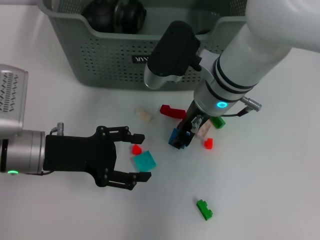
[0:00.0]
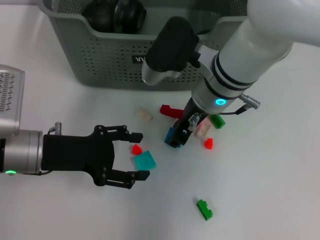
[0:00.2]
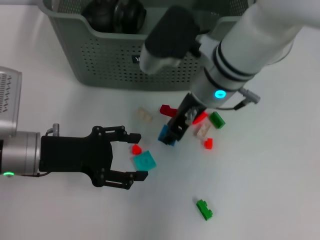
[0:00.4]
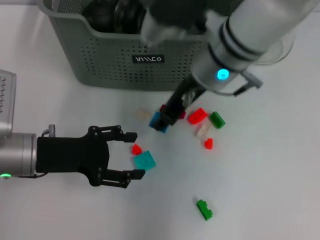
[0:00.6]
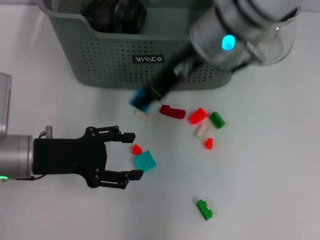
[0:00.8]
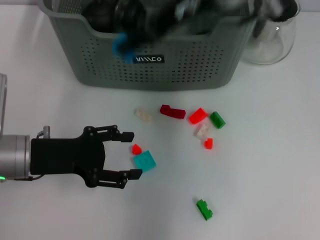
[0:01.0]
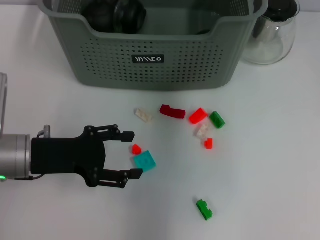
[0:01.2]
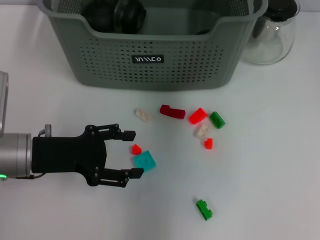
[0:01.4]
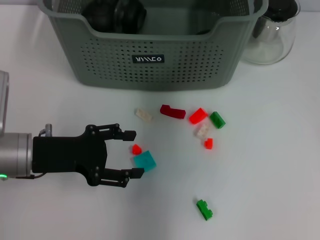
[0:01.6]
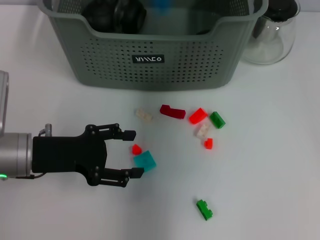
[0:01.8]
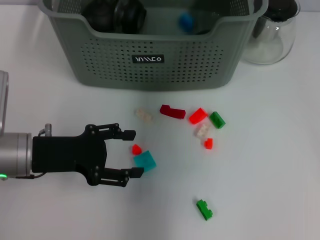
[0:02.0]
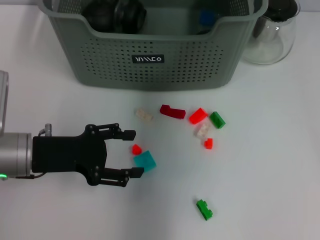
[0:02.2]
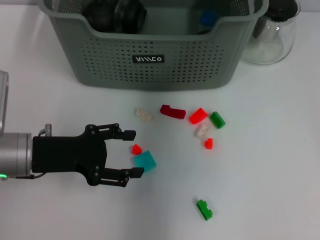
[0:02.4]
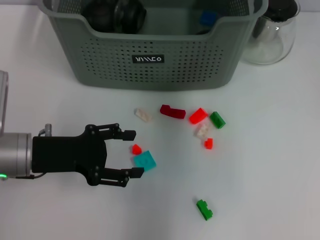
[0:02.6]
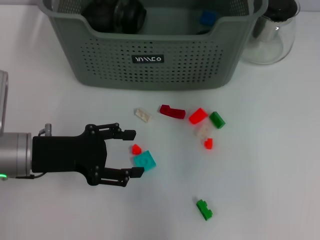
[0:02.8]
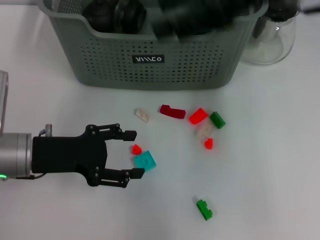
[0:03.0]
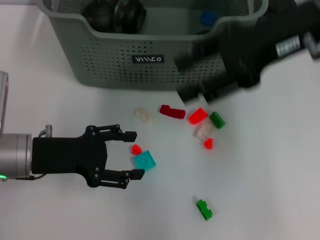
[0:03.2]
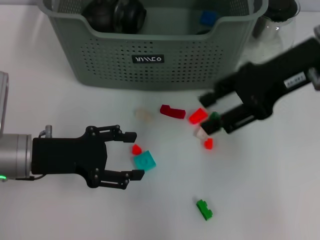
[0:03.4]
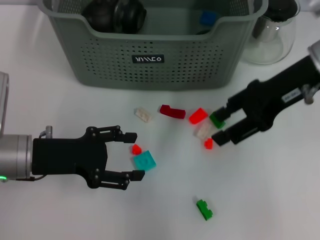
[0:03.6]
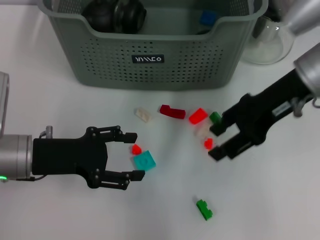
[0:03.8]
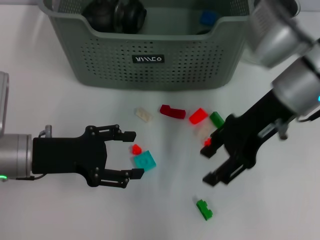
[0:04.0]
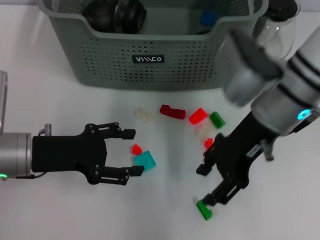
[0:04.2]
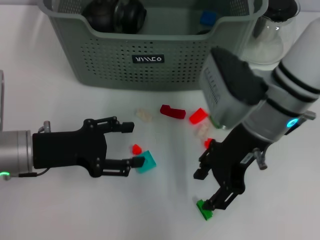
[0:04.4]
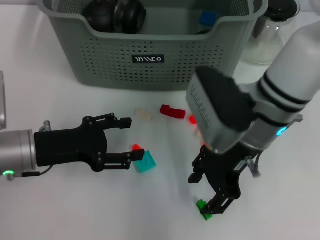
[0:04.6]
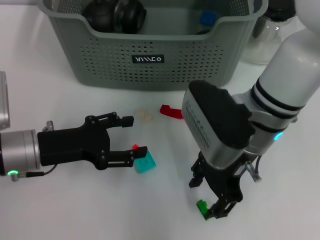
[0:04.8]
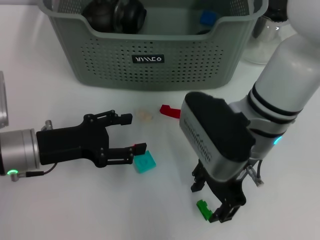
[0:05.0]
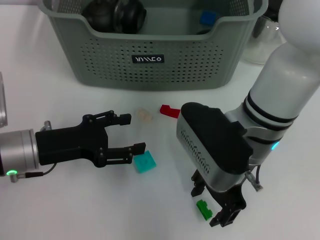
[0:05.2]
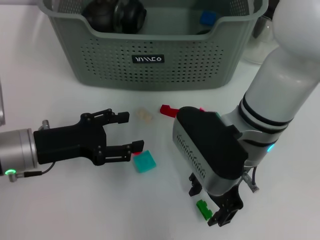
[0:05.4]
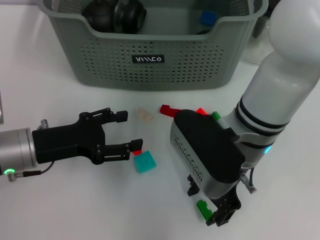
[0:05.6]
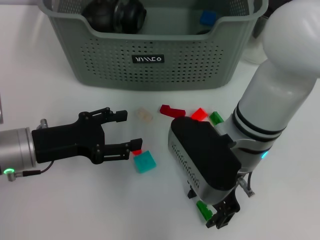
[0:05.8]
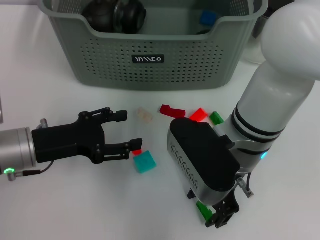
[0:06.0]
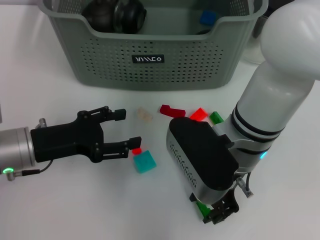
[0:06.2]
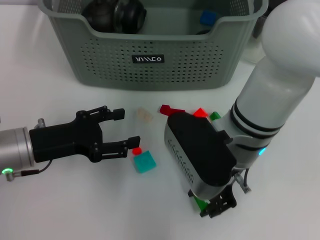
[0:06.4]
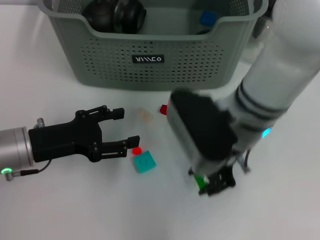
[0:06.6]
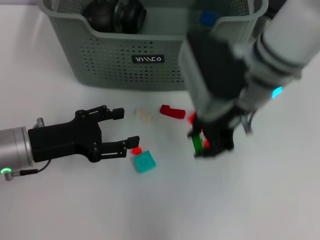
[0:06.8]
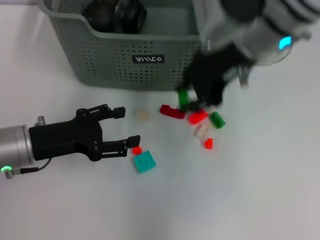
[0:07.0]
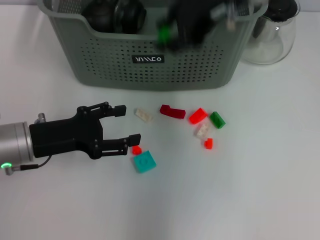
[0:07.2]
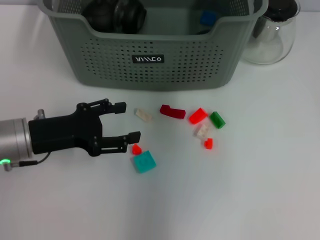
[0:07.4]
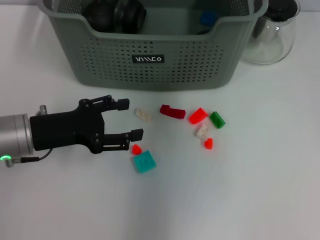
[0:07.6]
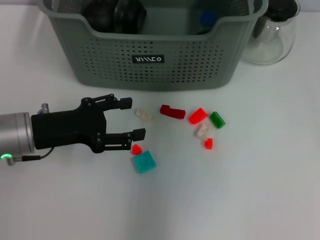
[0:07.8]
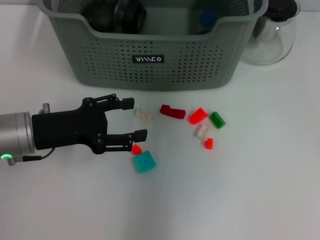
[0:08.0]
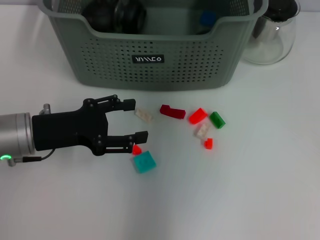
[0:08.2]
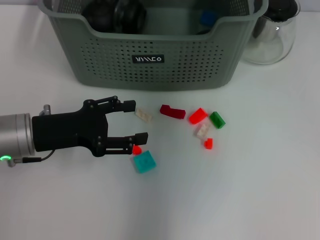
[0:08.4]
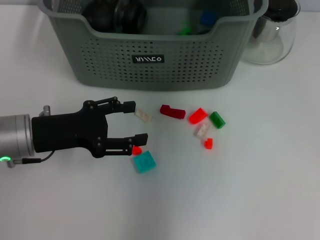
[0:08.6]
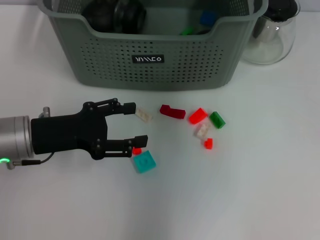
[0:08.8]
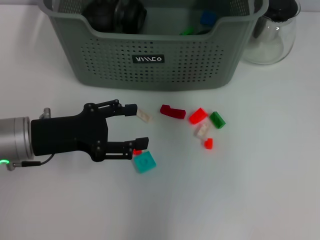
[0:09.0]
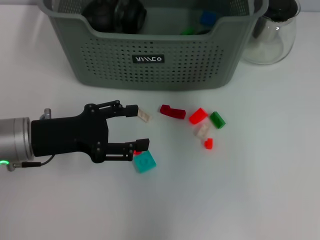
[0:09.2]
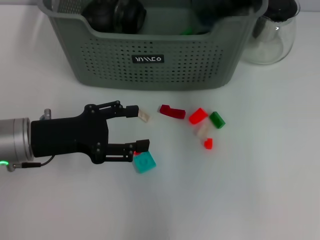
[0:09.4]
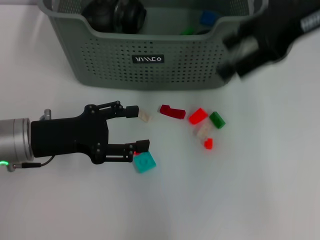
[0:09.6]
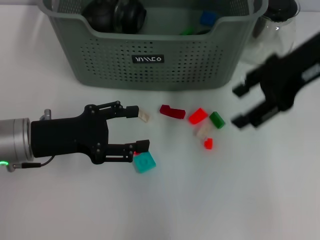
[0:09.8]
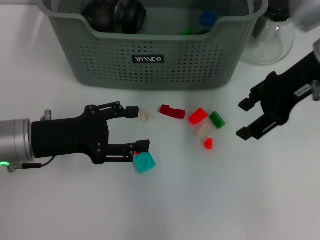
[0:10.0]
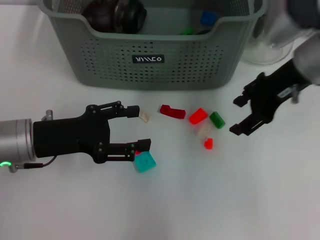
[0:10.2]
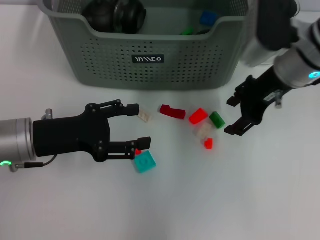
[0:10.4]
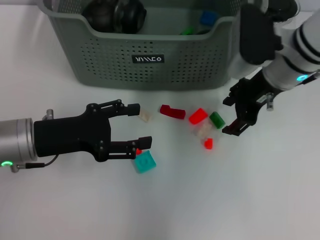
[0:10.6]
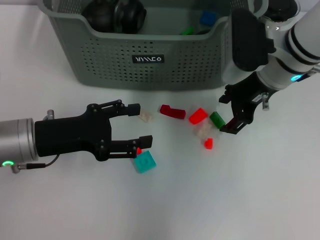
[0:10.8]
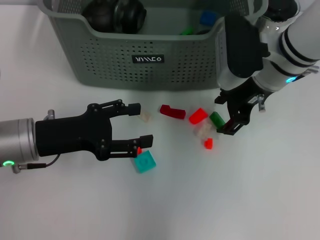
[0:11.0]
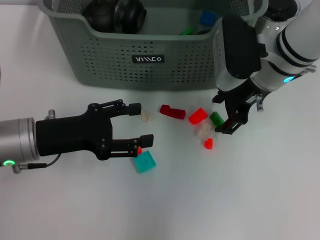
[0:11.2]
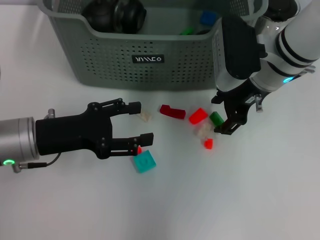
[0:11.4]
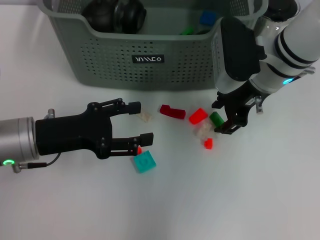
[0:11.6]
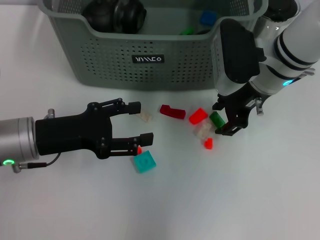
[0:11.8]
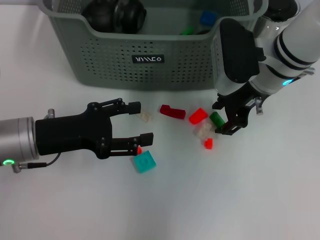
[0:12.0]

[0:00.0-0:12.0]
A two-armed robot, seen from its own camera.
Task of the whole recording: pick up the teacup on the table and place it into the storage bin, pick up the block on the table and place it into the storage bin.
Step, 0:00.0 to 0:01.8: Place the dark blue block in the storage box with right gripper.
Step, 0:02.0 to 0:06.2: Grasp the green block with right gripper.
Step, 0:06.4 to 0:08.6: Place the green block in the storage box with right gripper.
0:00.0 to 0:01.6: The right gripper moves upward and forward, roughly 20 cm.
0:01.6 to 0:03.0: The right gripper is displaced backward and to the right by approximately 10 cm.
0:03.0 to 0:04.4: The right gripper travels downward by approximately 15 cm.
0:04.4 to 0:06.0: The right gripper shifts by about 5 cm.
0:06.0 to 0:07.6: The right gripper heads upward and forward, covering approximately 25 cm.
0:07.6 to 0:09.0: The right gripper opens up.
0:09.0 to 0:10.4: The right gripper moves downward and backward, about 15 cm.
0:10.4 to 0:12.0: The grippers make only small movements.

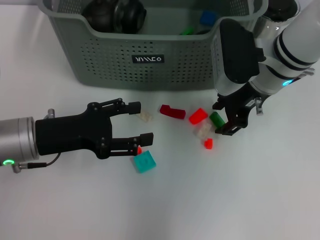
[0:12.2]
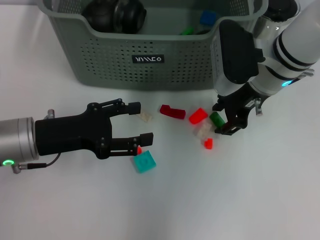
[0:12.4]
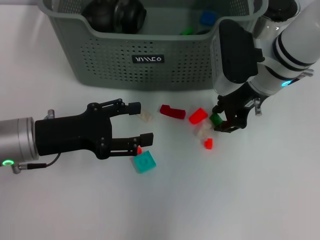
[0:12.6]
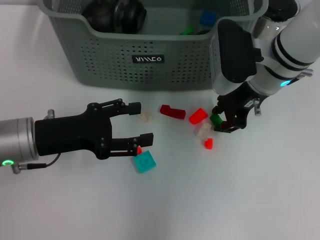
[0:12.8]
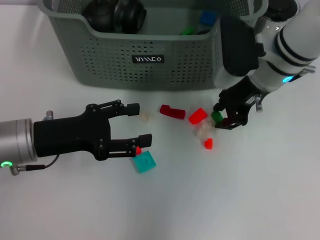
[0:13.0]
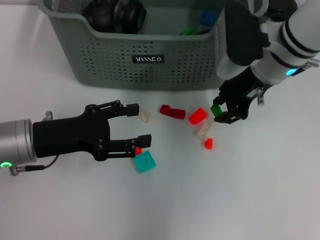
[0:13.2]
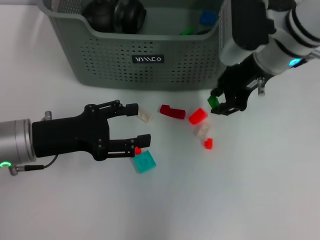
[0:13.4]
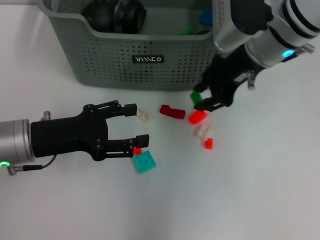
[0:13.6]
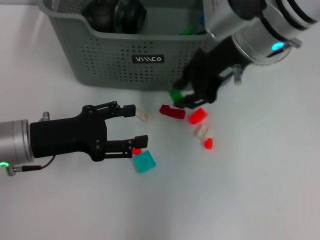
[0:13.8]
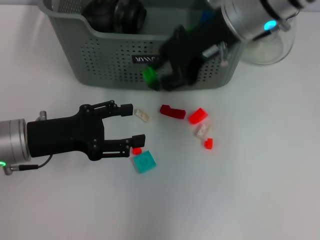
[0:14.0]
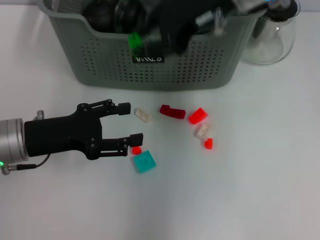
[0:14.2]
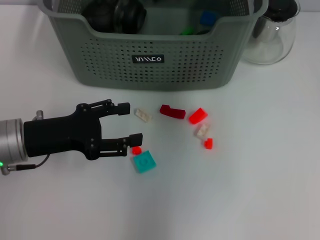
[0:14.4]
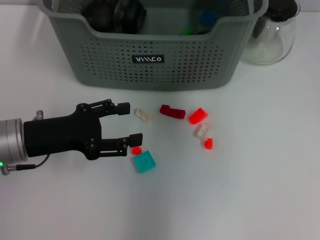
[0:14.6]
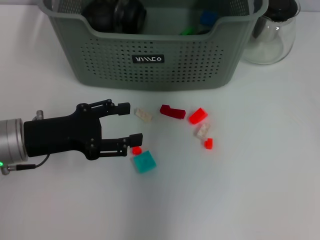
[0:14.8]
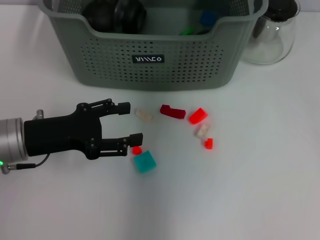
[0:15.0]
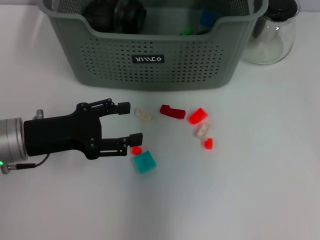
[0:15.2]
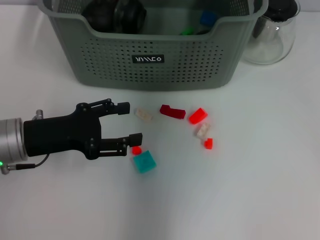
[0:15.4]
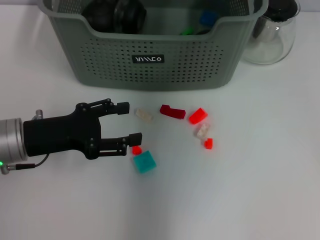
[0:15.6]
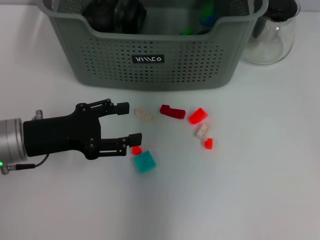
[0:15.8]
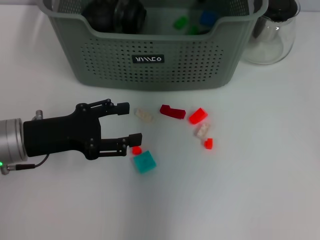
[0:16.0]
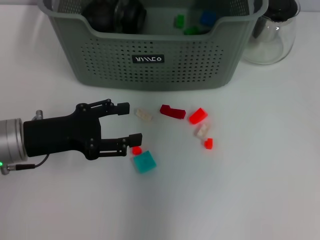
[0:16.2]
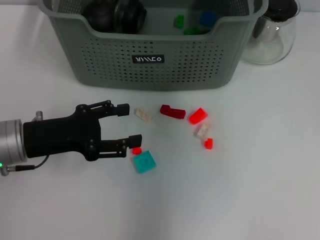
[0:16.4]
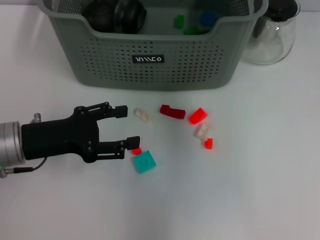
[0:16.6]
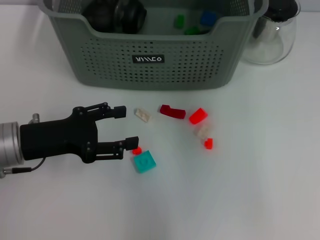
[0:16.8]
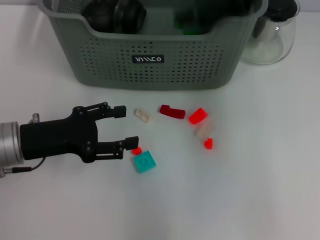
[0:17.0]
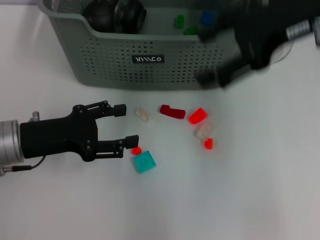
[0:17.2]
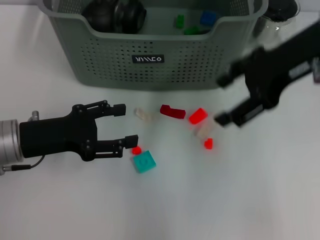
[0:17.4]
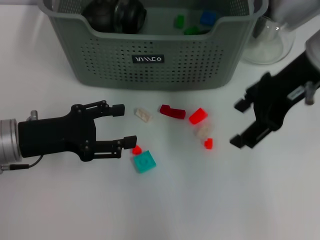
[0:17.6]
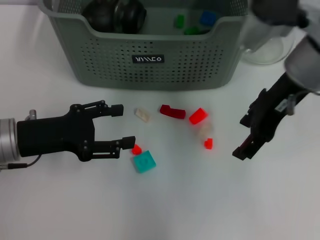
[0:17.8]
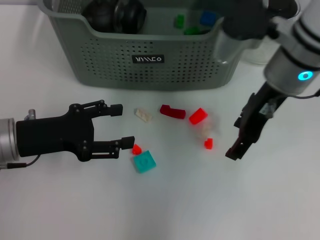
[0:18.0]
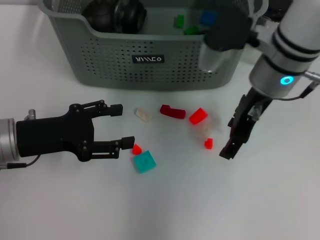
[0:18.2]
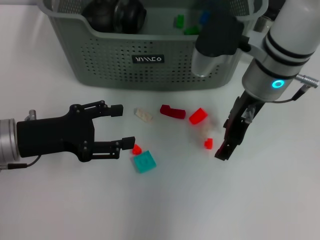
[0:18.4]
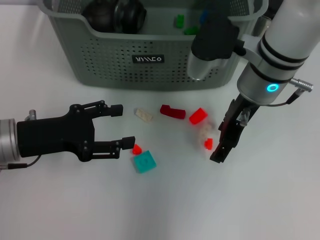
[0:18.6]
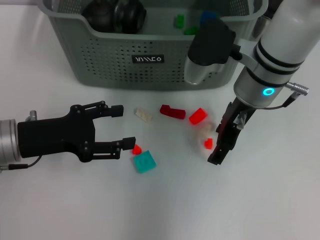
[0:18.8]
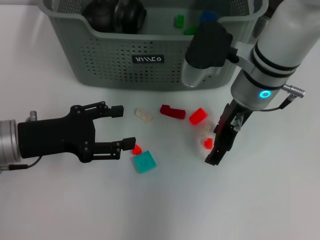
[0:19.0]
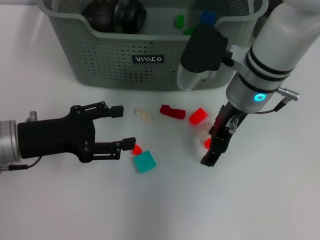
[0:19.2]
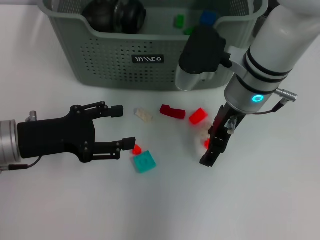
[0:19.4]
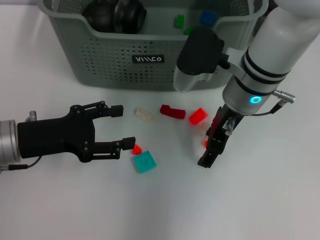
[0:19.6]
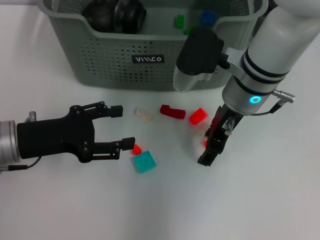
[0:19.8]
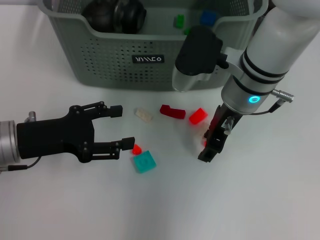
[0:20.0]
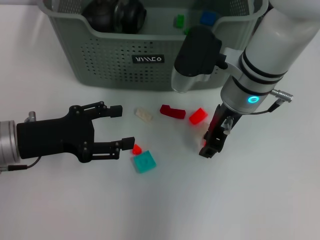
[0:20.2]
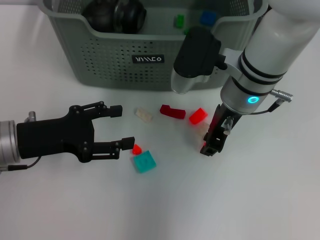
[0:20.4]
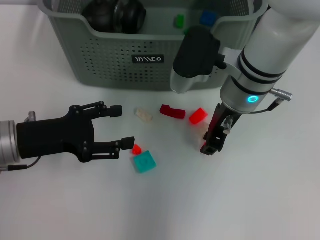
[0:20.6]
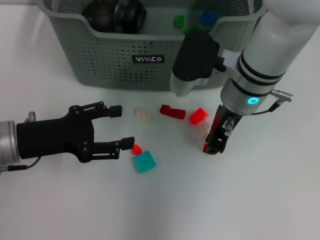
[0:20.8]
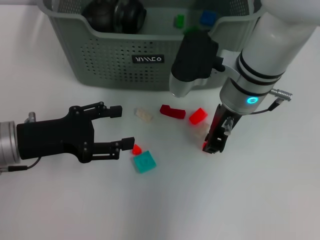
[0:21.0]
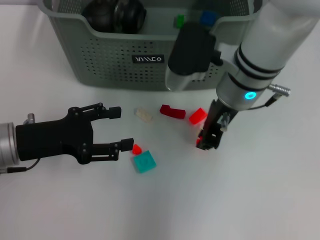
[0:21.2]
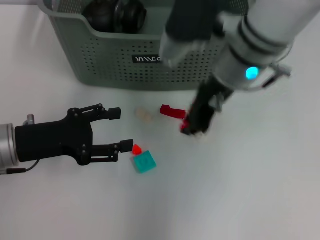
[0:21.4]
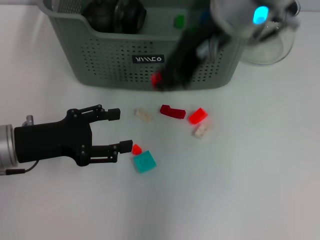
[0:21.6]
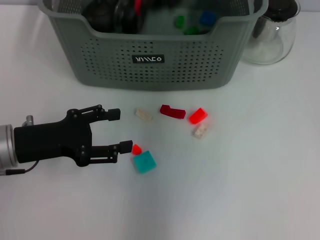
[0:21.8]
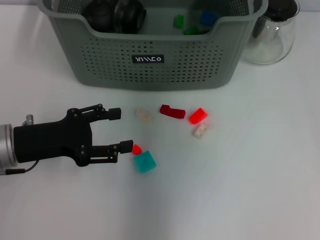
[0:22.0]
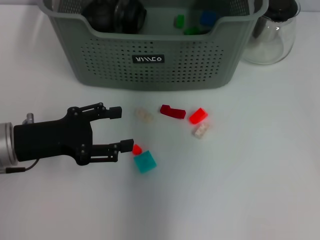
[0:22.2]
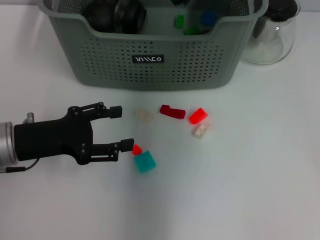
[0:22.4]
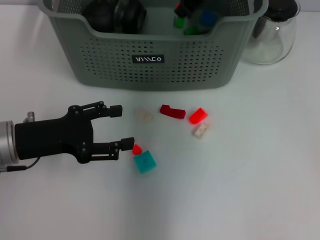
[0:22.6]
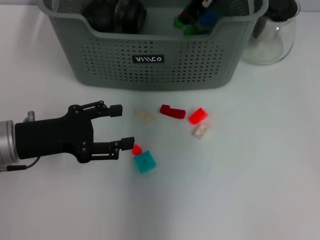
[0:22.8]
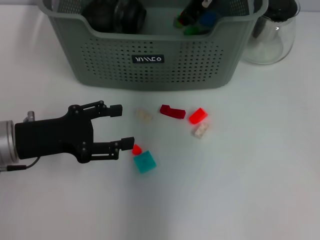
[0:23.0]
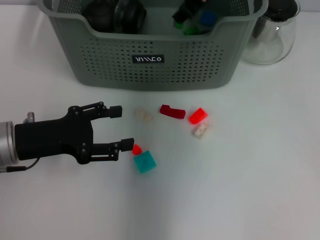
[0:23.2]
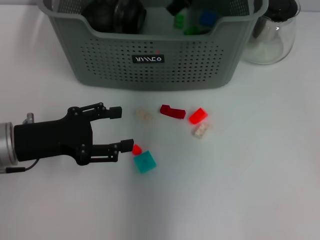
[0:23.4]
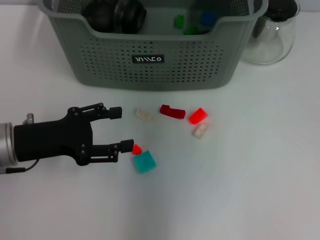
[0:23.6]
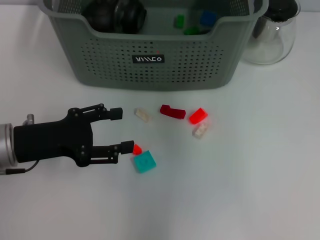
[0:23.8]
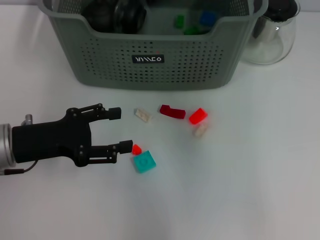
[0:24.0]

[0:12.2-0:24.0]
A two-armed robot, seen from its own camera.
Task of the whole recording: pick up the teacup on the table and place it into the storage bin, pick up the block on the table and place it into the storage bin.
Step, 0:12.8 to 0:15.8: Place the green block in the storage box with right gripper.
Step, 0:16.0 to 0:20.8: Grasp the orange block with right gripper.
Step, 0:21.0 to 0:23.0: Place the orange block in the storage box with right gripper.
0:12.2 to 0:13.6: The right gripper shifts by approximately 5 cm.
0:13.6 to 0:15.2: The right gripper heads forward and upward, covering some 10 cm.
0:15.2 to 0:16.6: The right gripper heads upward and backward, covering some 10 cm.
0:16.6 to 0:18.2: The right gripper moves downward, about 15 cm.
0:18.2 to 0:19.6: The grippers move only a little.
0:19.6 to 0:21.0: The right gripper closes up.
0:21.0 to 0:22.6: The right gripper heads upward and forward, covering roughly 15 cm.
0:22.6 to 0:24.0: The right gripper goes approximately 15 cm backward, upward and to the right, and opens.
